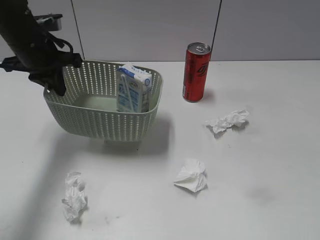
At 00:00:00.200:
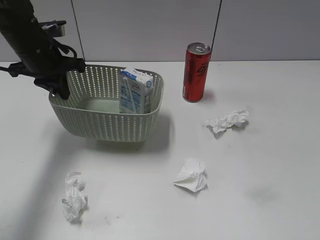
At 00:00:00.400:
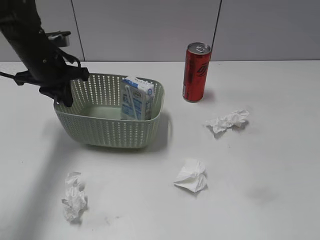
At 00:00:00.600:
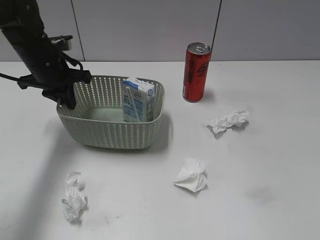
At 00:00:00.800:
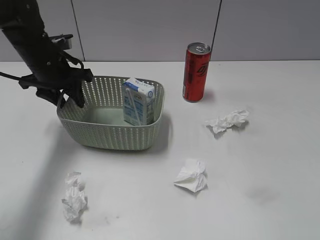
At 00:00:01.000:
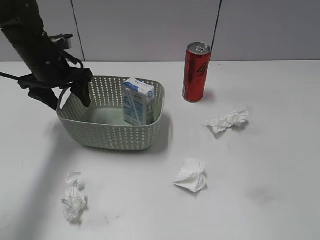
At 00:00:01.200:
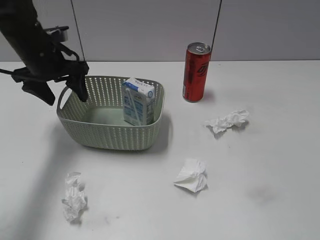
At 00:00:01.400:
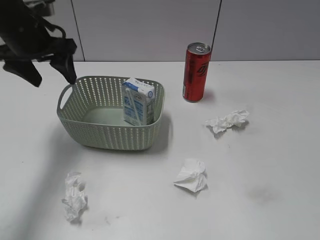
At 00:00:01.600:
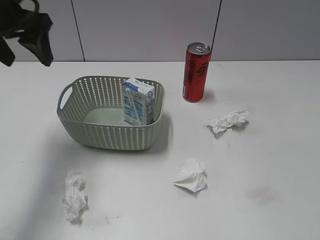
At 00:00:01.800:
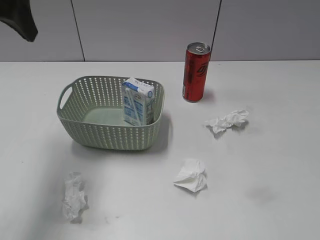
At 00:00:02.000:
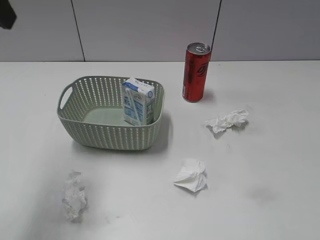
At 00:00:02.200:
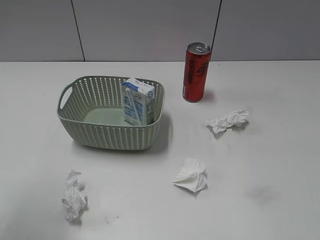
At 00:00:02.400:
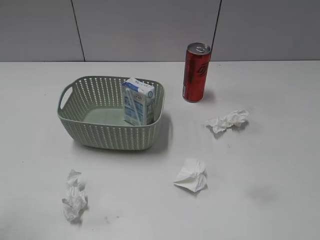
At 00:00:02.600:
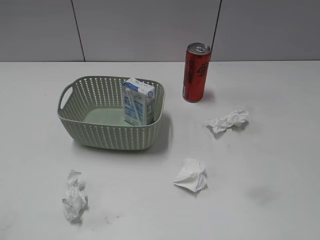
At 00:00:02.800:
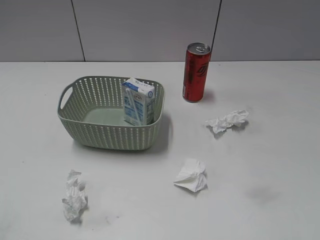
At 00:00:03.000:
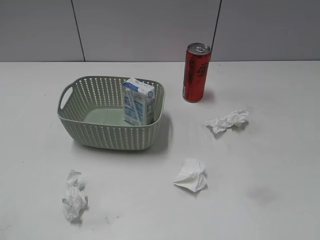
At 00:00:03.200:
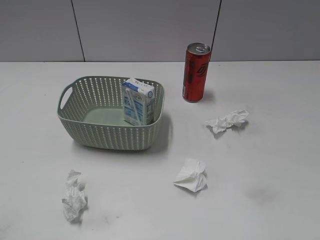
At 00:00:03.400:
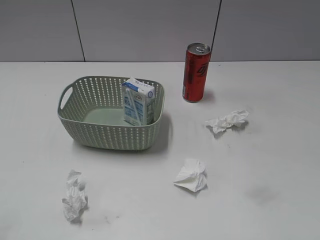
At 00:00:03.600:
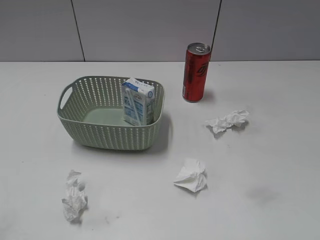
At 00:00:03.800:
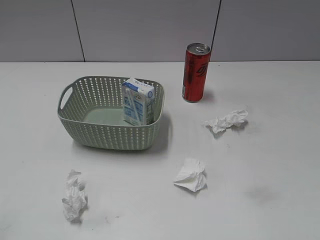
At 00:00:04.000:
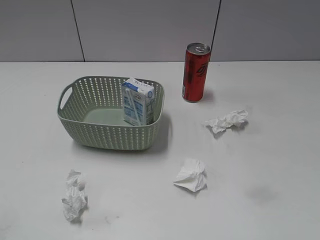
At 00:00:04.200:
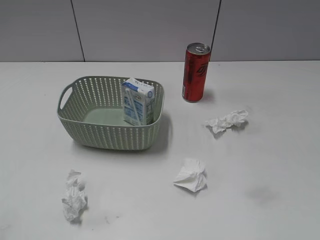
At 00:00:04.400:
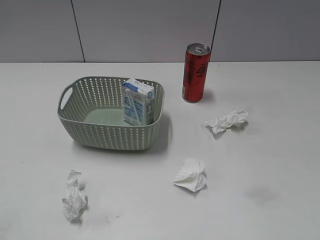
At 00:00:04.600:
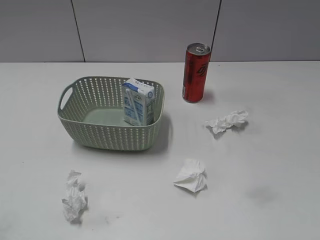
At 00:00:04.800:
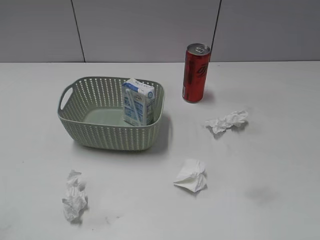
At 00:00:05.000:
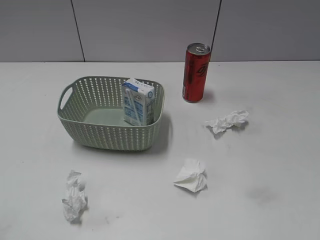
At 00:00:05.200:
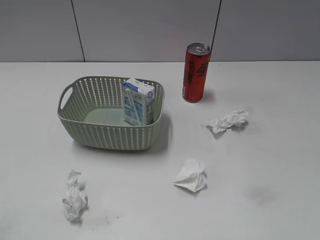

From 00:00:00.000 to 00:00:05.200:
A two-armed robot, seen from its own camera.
From 00:00:00.000 to 00:00:01.800: The left gripper travels upward and backward by some 15 cm, and opens its fingers.
From 00:00:01.800 to 00:00:03.400: The left gripper travels backward by some 30 cm.
